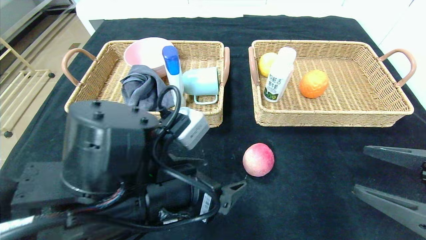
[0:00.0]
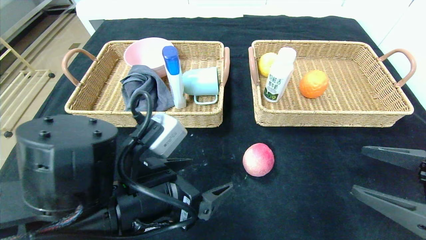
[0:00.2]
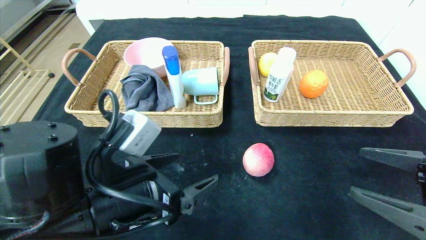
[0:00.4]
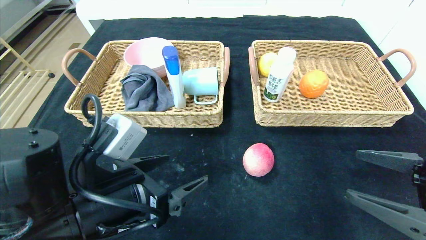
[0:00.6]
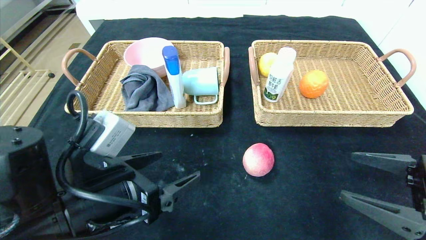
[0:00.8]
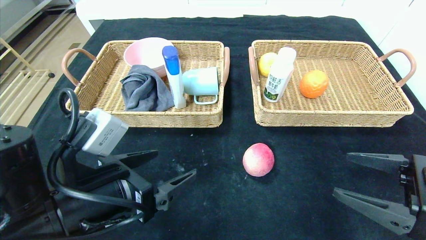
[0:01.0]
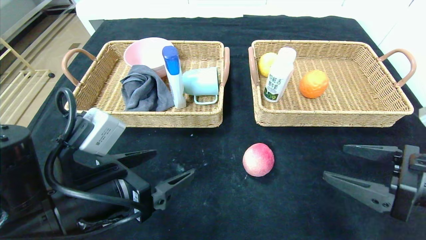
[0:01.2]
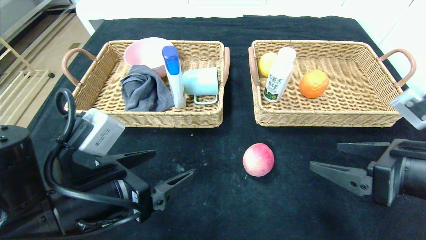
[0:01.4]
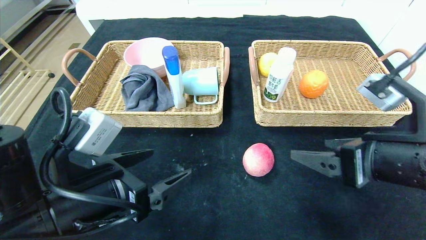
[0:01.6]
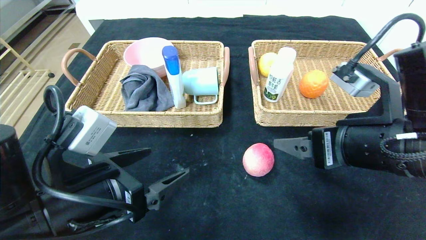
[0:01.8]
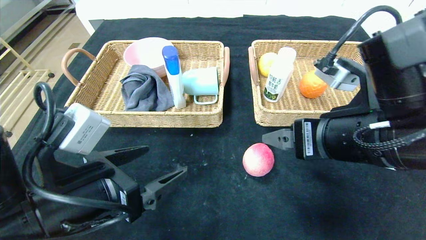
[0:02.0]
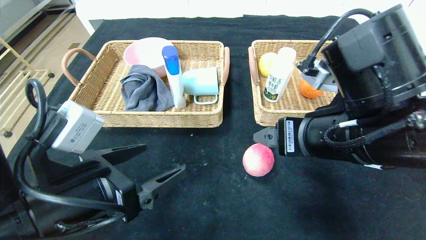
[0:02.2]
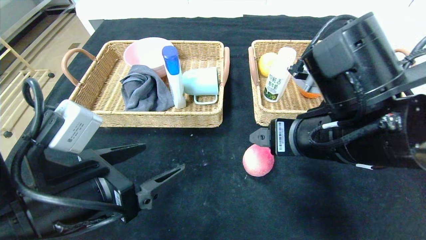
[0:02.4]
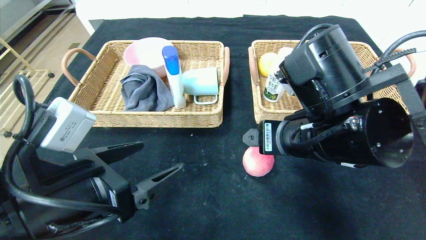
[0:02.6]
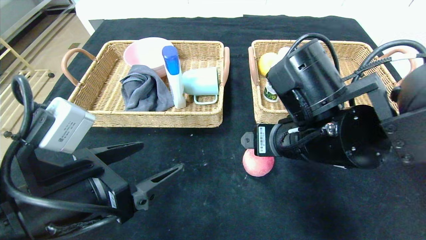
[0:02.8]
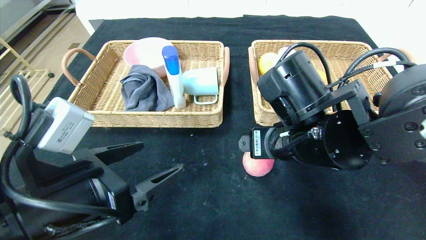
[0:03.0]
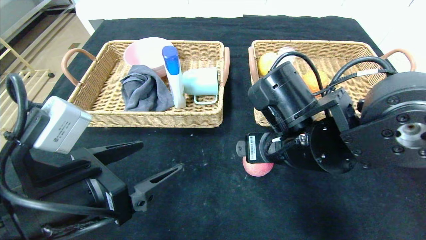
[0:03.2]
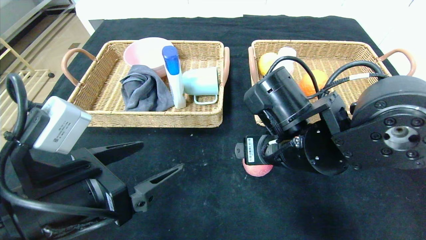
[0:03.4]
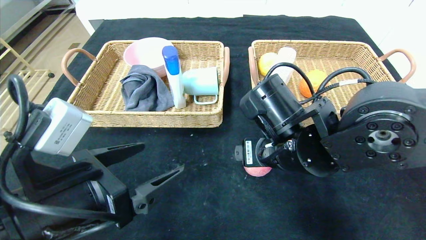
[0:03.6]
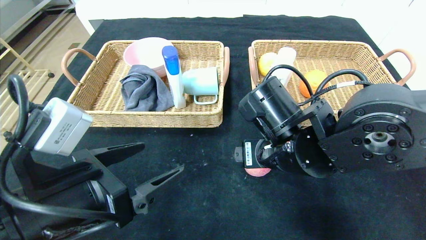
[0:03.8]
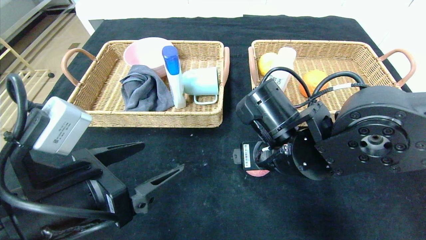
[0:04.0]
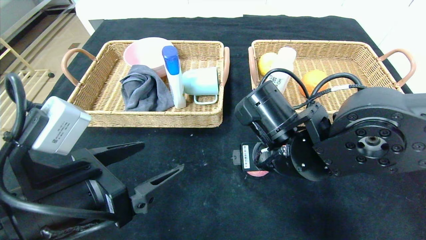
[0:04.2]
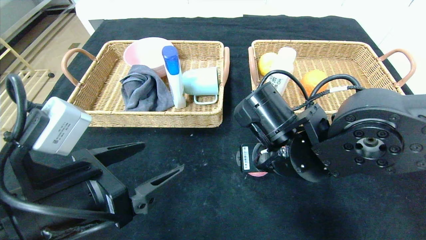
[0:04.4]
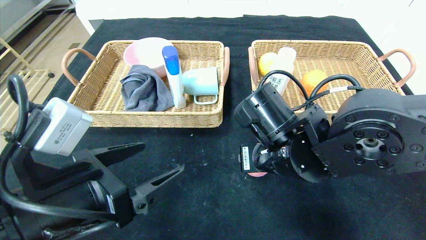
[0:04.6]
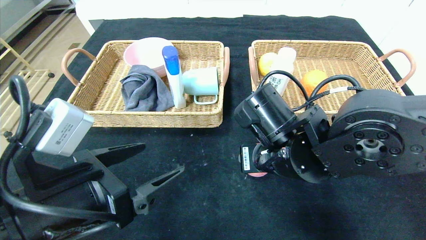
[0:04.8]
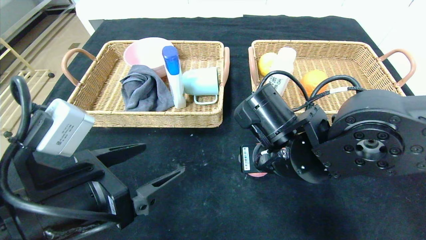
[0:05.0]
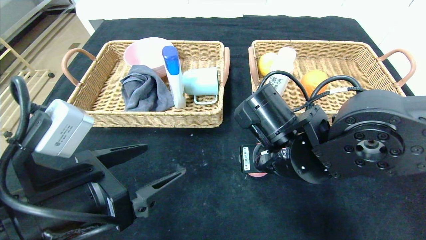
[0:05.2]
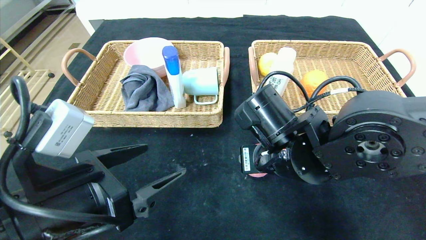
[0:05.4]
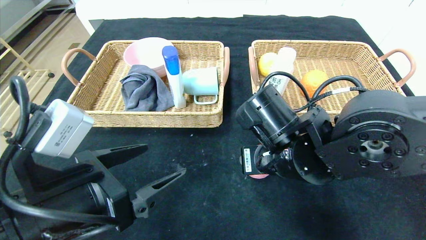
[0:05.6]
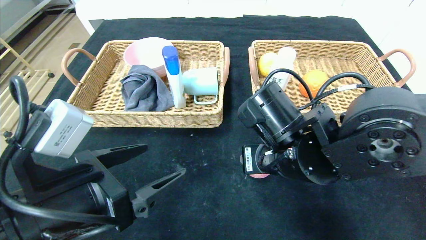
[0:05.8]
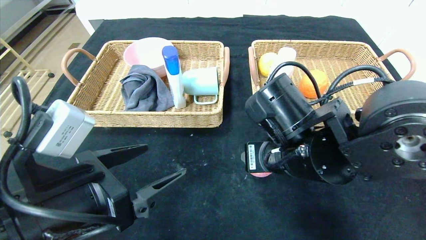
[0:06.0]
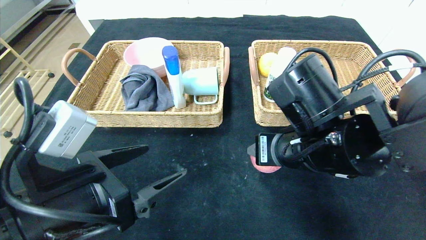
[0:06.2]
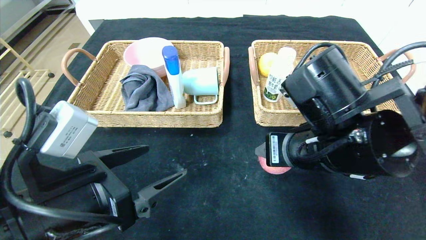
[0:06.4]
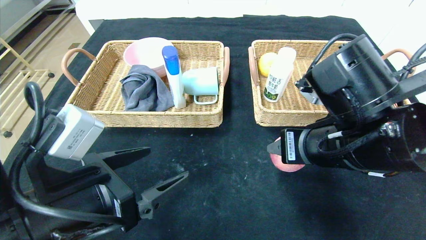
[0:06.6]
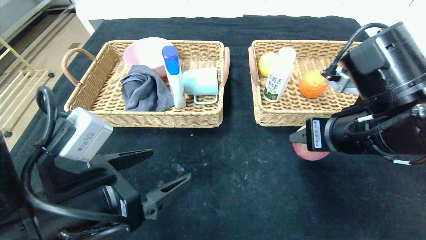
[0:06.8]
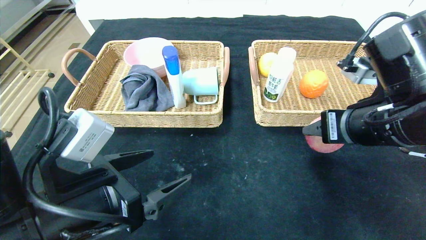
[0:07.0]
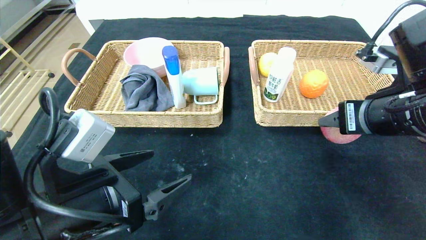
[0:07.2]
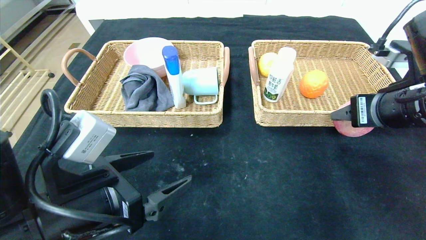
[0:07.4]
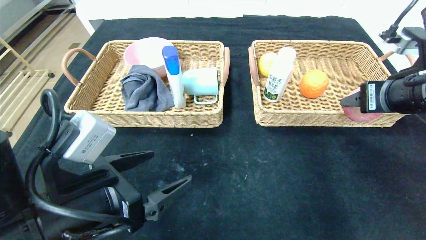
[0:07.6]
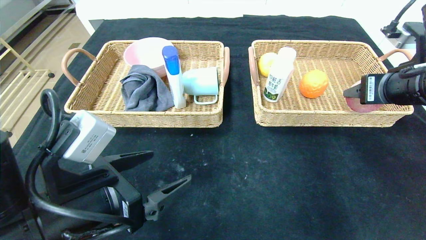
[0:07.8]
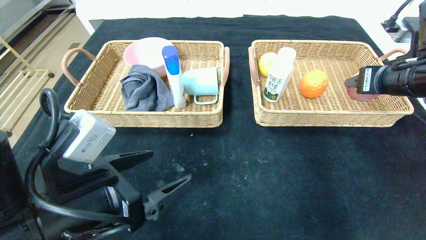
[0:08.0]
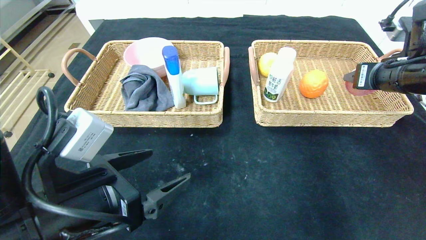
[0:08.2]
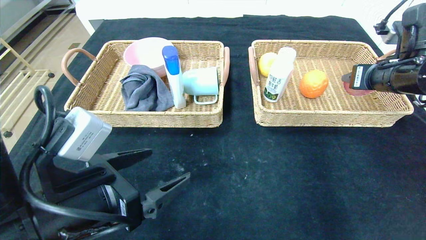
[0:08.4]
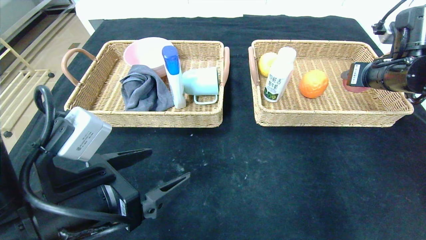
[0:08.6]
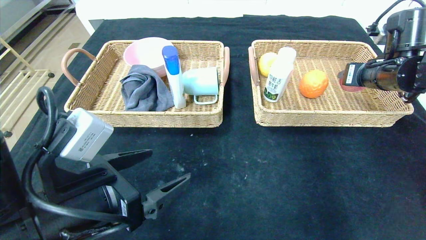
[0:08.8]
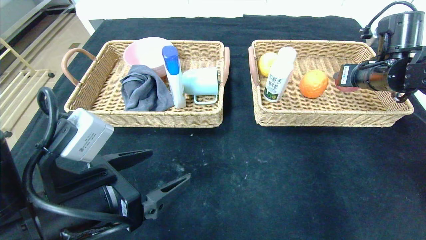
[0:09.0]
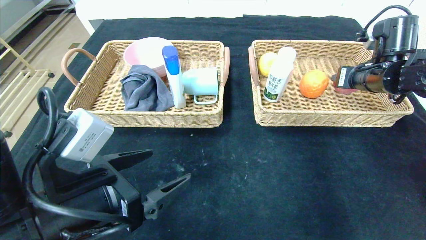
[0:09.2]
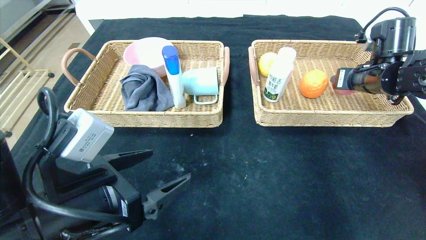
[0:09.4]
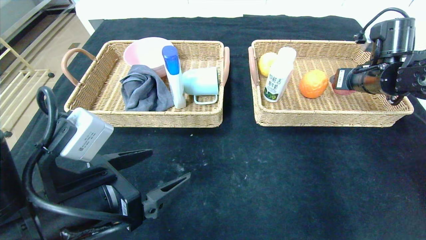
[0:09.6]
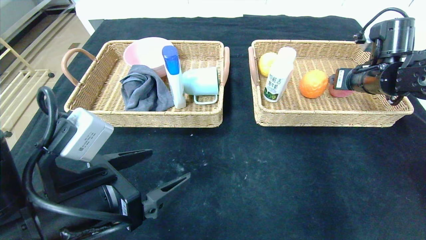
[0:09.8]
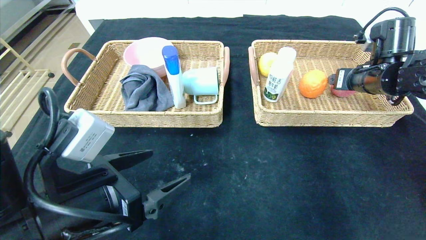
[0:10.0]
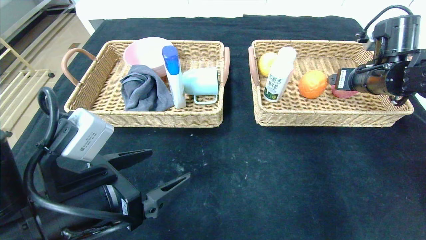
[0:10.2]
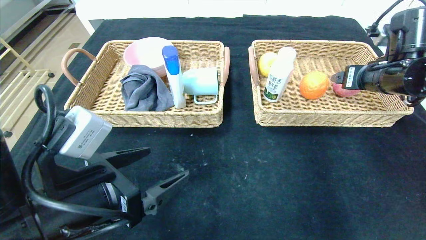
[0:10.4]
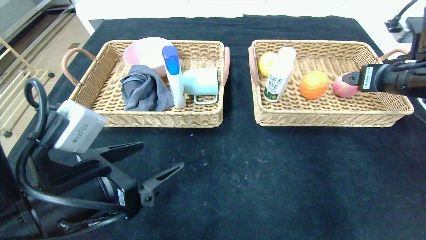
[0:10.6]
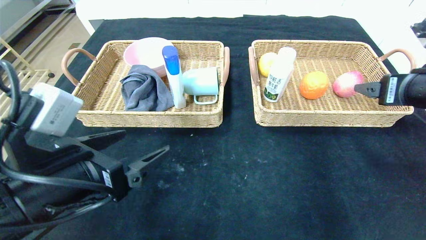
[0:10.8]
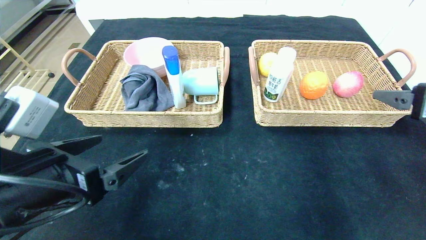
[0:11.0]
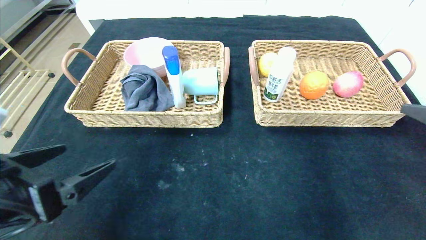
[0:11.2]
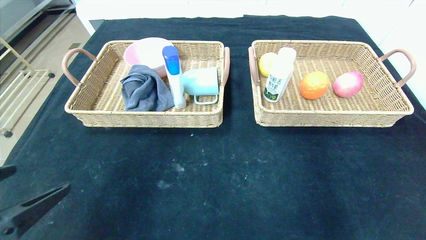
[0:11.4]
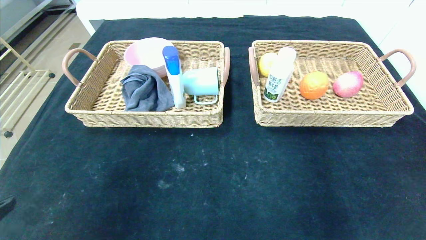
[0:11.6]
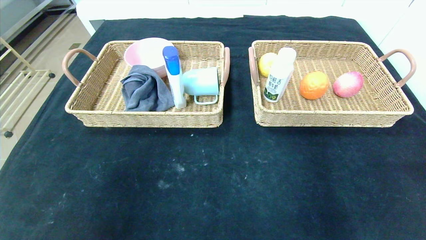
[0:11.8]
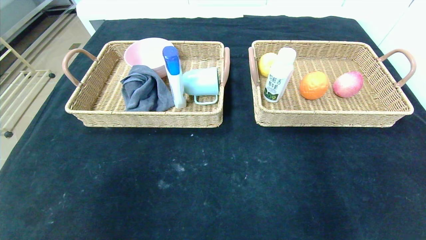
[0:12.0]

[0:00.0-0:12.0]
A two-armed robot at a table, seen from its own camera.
Step, 0:00.0 to 0:10.0: Grasp the peach and put it in the right basket.
0:00.0 to 0:01.6: The grippers both shift to the left by about 10 cm.
0:01.6 to 0:03.0: The right gripper heads to the left and forward, covering approximately 15 cm.
0:03.0 to 0:04.4: The right gripper closes its fingers.
0:04.4 to 0:06.0: The grippers move only a little.
0:06.0 to 0:07.6: The right gripper travels to the right and upward by roughly 20 cm.
0:07.6 to 0:09.0: The right gripper is displaced forward by about 15 cm.
0:09.0 to 0:10.4: The right gripper opens its fingers.
0:10.4 to 0:12.0: The right gripper travels backward by about 40 cm, while the left gripper shifts roughly 25 cm backward and to the left.

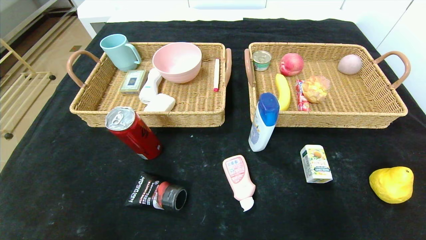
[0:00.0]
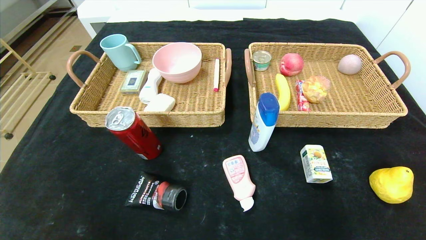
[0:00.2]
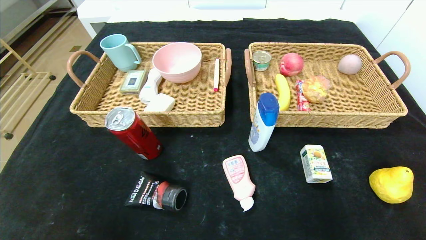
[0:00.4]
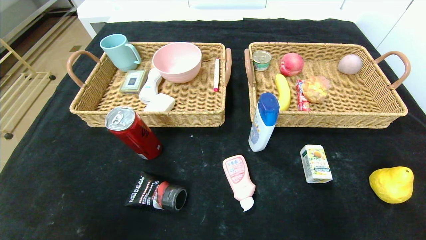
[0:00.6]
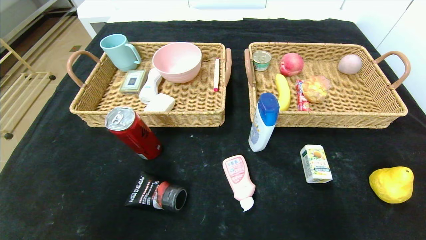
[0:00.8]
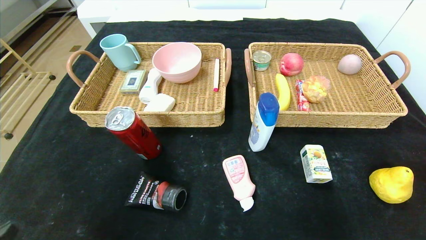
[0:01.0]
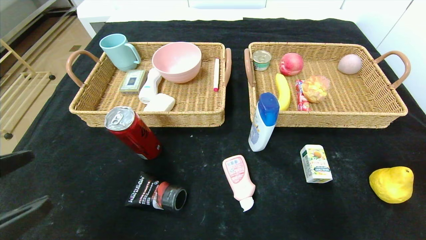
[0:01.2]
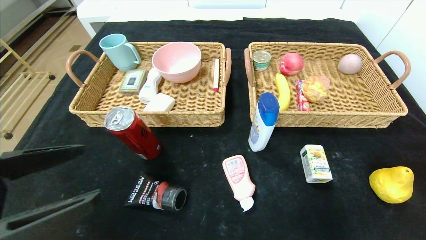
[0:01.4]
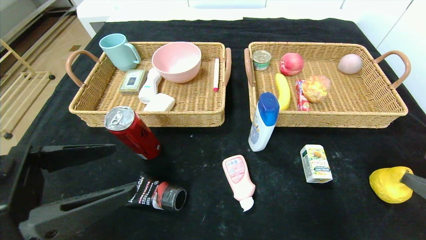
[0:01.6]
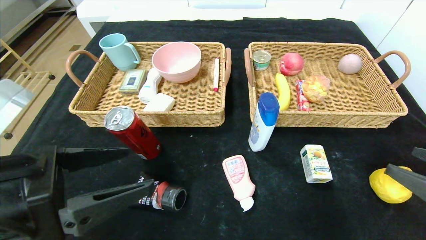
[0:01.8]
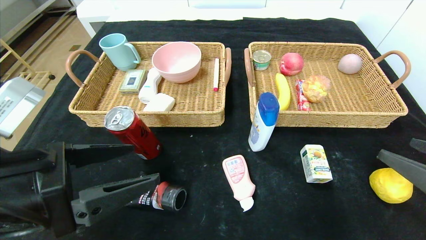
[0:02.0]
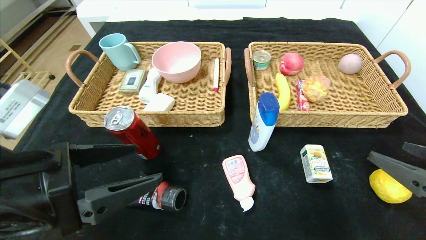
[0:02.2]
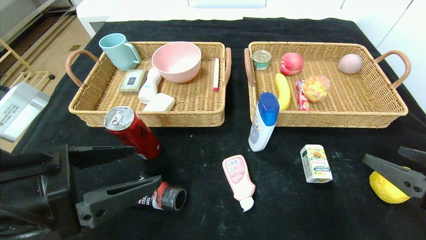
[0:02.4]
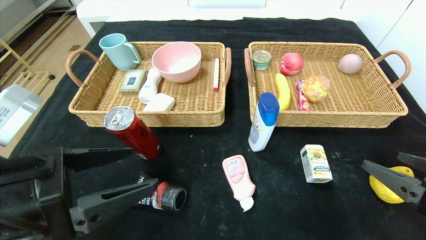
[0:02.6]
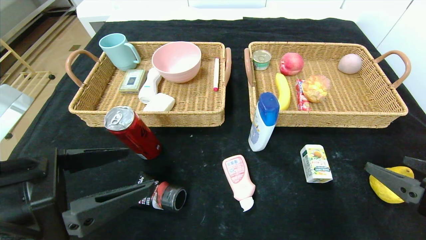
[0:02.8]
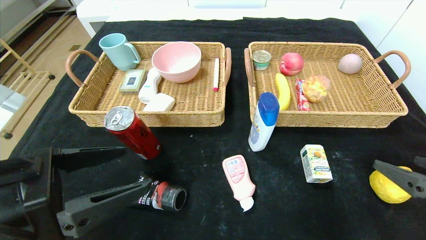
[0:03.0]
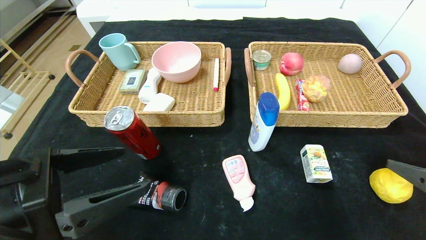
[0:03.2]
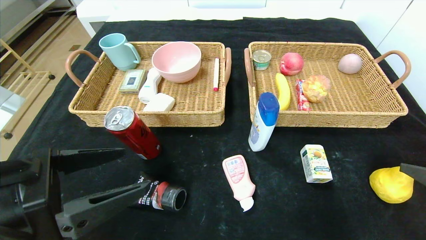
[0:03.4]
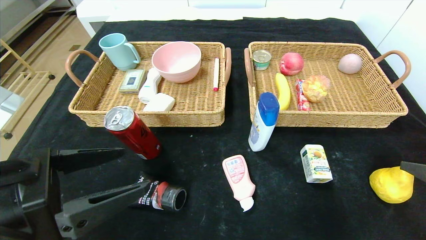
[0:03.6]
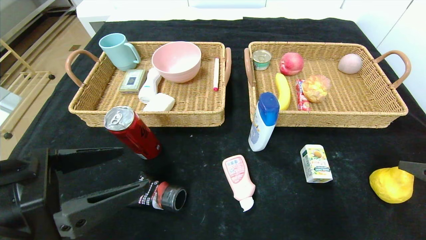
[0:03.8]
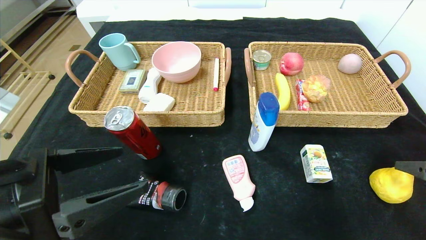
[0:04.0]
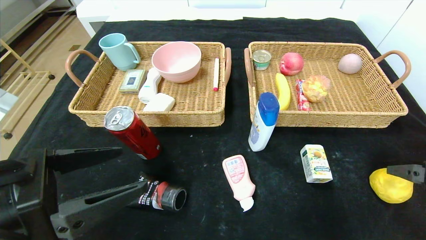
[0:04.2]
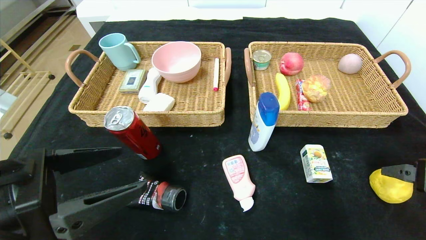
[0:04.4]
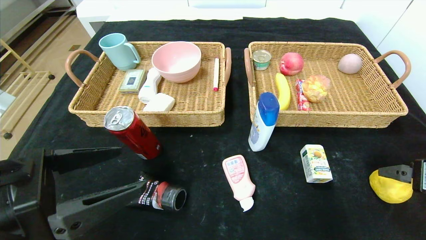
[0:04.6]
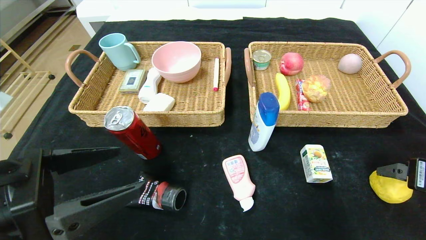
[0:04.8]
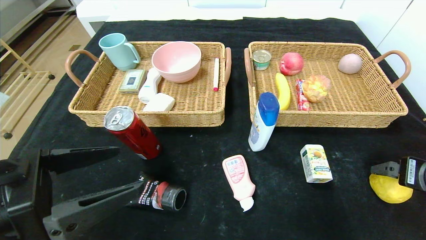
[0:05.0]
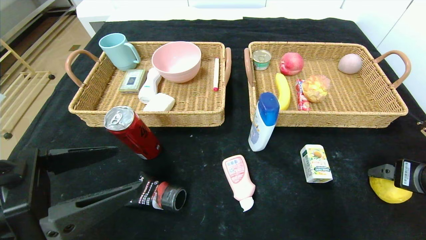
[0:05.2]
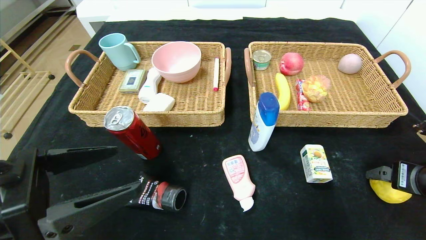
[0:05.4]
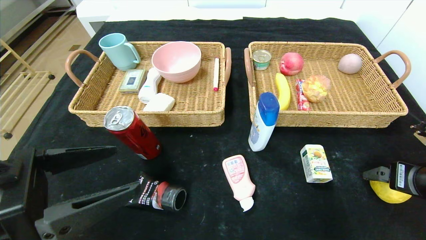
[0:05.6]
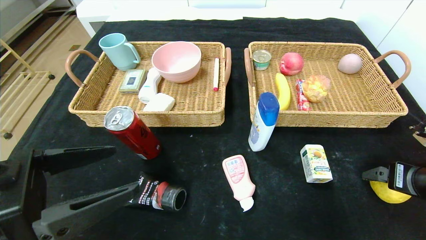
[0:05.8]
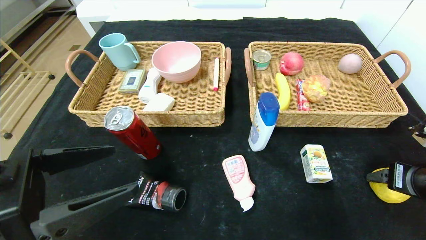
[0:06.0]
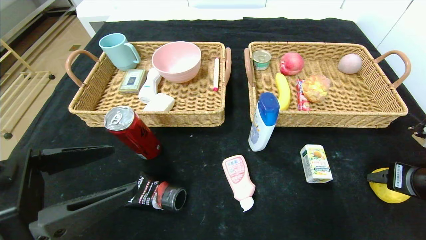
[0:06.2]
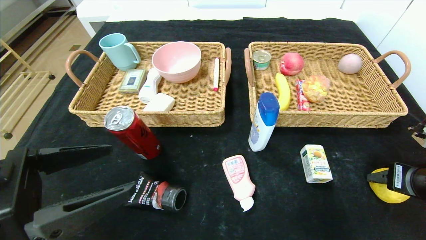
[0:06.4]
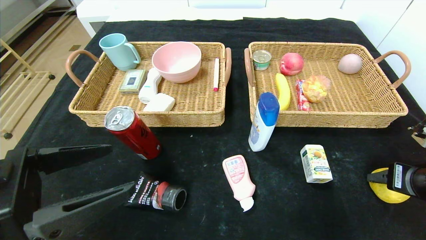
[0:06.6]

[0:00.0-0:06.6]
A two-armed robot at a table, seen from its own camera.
0:00.0 to 0:01.6: The left gripper heads forward and to the right, covering about 10 cm. The right gripper heads forward, covering some 10 cm.
0:03.2 to 0:05.0: The right gripper is displaced forward by about 5 cm.
0:05.0 to 0:06.6: The right gripper closes its fingers.
